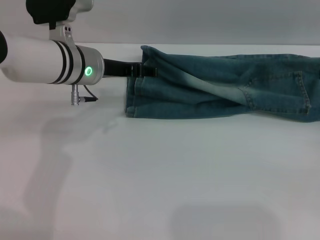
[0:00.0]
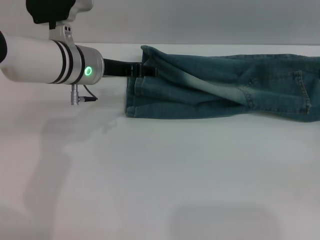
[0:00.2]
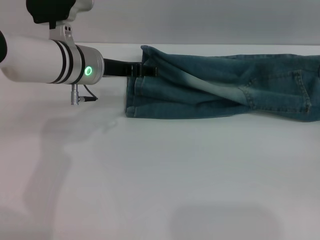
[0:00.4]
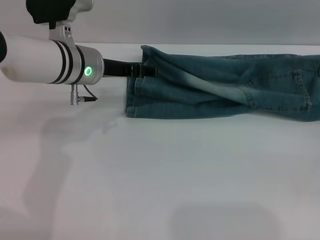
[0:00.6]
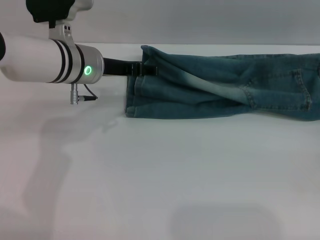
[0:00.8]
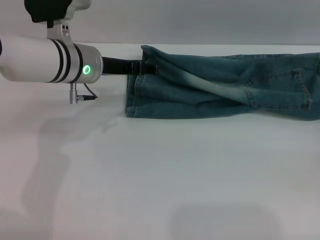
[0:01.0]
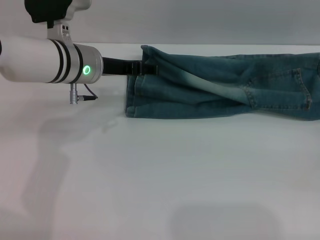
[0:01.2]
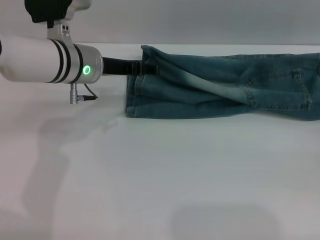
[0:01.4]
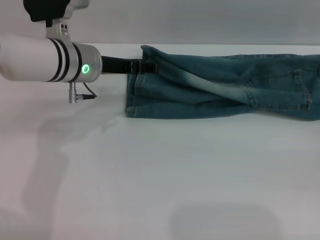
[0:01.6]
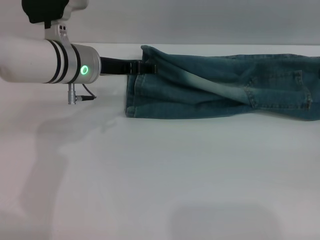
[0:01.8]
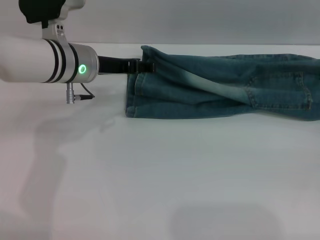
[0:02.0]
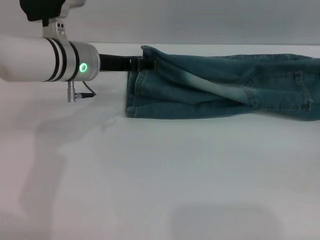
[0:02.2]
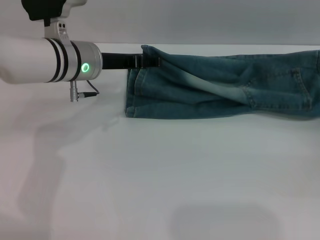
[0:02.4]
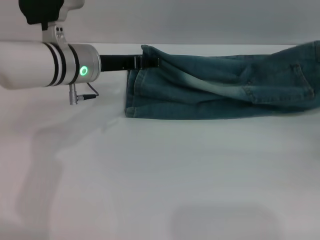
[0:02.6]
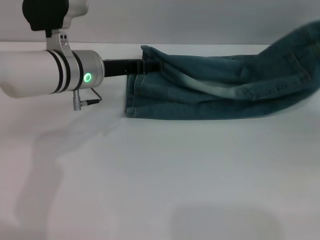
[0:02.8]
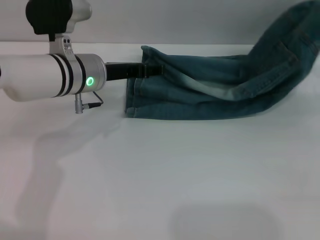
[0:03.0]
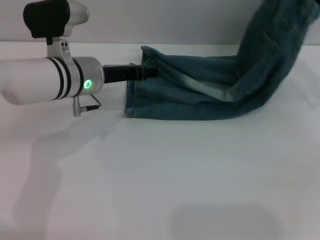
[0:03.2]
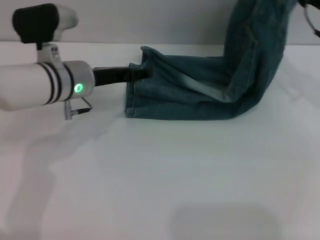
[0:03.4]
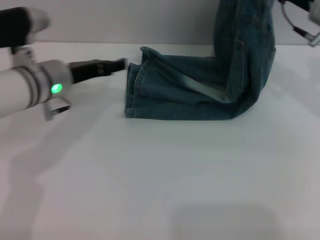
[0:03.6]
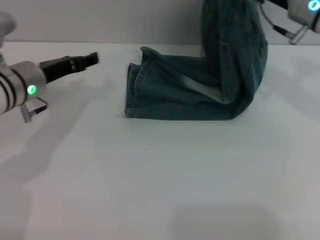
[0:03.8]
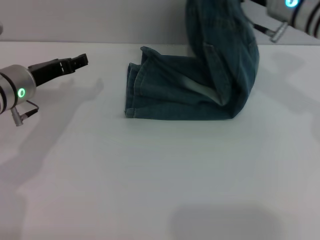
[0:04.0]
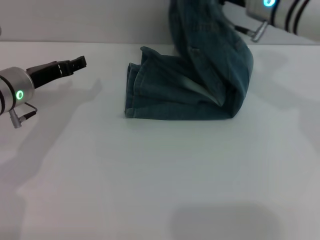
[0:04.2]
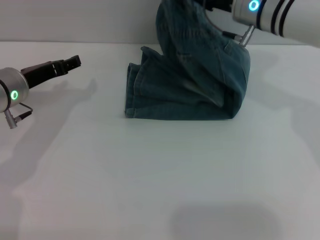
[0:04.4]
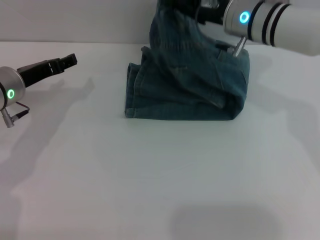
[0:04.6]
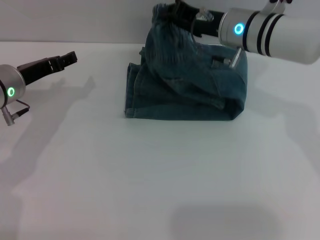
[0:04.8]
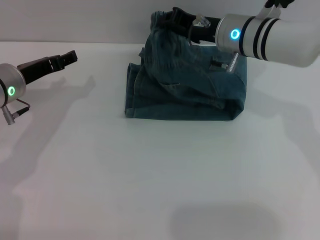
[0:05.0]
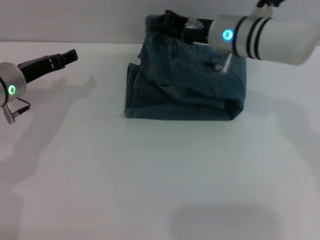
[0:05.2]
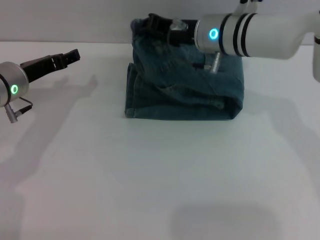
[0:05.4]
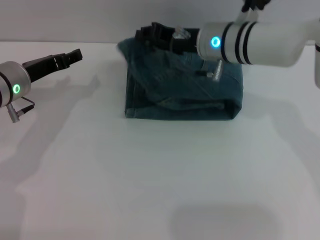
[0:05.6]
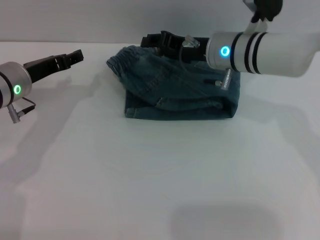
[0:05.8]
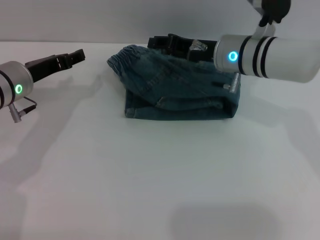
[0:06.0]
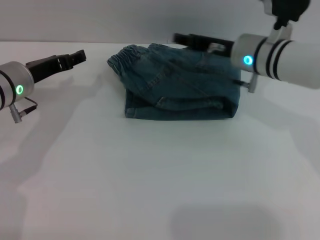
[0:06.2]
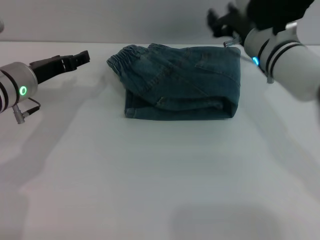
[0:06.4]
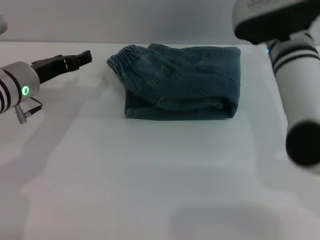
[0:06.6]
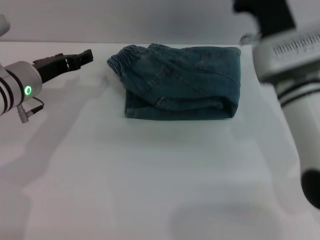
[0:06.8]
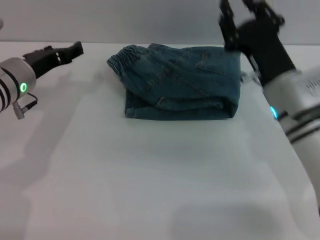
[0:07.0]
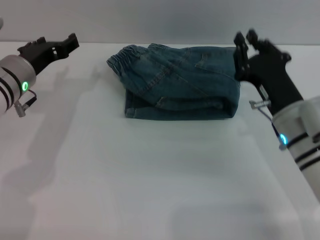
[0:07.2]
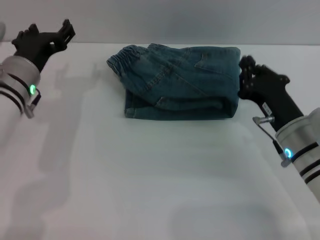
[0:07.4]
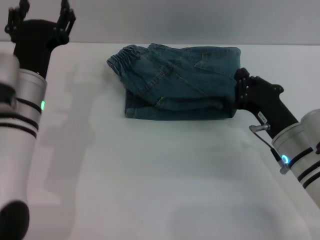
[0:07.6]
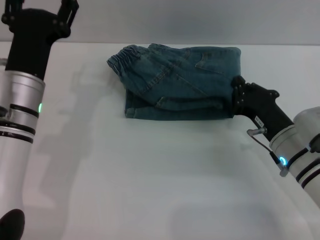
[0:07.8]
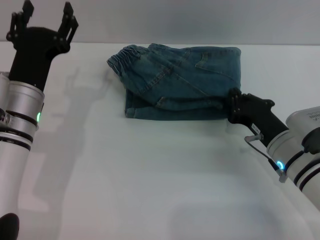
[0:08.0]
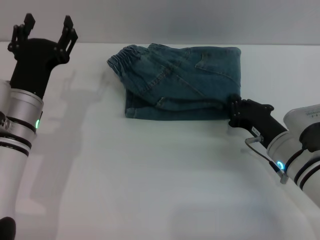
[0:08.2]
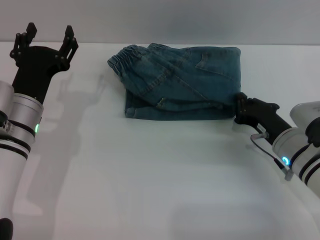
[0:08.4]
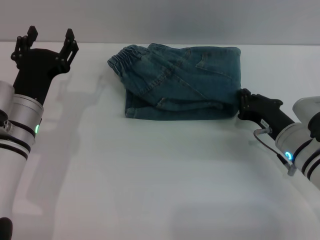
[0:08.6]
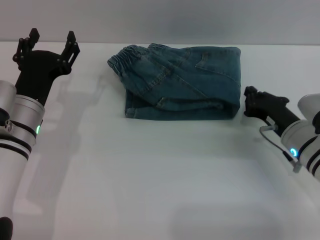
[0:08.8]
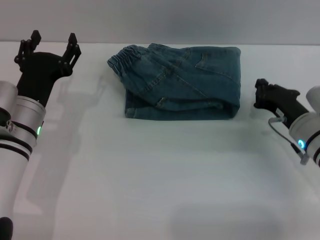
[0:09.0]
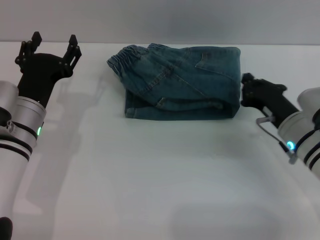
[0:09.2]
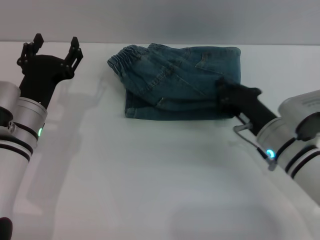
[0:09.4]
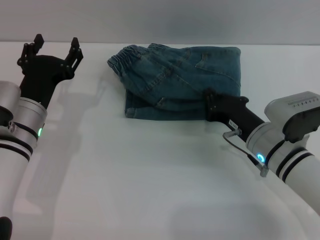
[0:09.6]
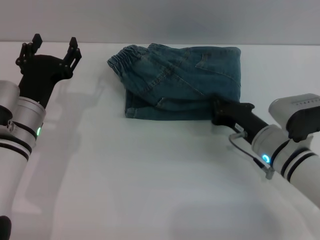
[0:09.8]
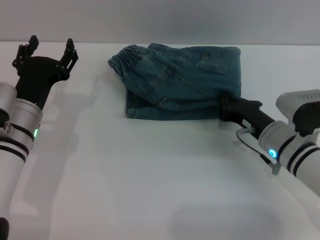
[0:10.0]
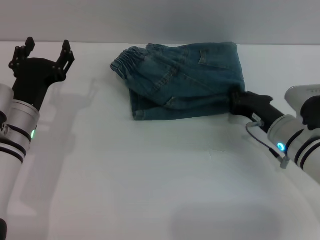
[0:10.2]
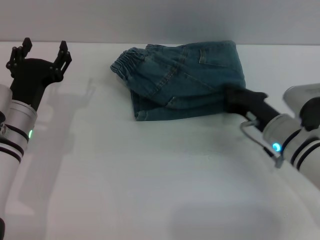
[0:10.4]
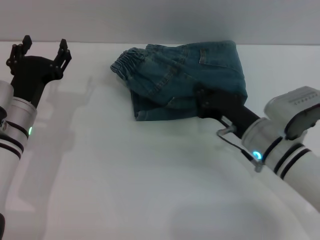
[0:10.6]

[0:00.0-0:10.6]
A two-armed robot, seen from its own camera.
Step, 0:00.0 to 0:06.2: Fold the pants from right to left with the right gripper.
Step, 0:06.4 to 0:10.6: Place the folded trousers onto the center area with the right grippers.
0:00.0 to 0:01.6: The grippers move only a little.
0:01.6 to 0:03.0: The right gripper shifts some 15 cm upward, forward and to the left, and closes its fingers.
0:03.0 to 0:04.6: The right gripper heads to the left, covering some 20 cm. Meanwhile the left gripper travels to the left by roughly 10 cm.
0:04.6 to 0:06.0: The right gripper opens.
0:06.0 to 0:07.6: The right gripper travels backward, downward and to the right by about 20 cm, and closes up. Meanwhile the left gripper goes approximately 5 cm to the right and backward.
0:07.6 to 0:09.0: The right gripper ends up approximately 5 cm from where it was.
0:09.0 to 0:10.6: The right gripper swings left and right, some 10 cm each way, with 2 reversals.

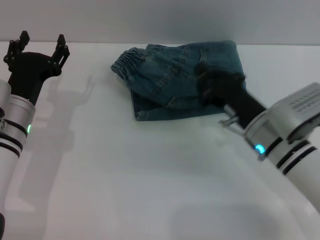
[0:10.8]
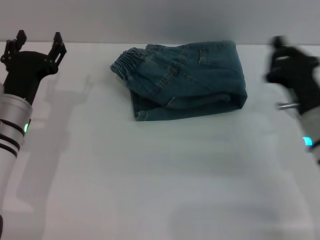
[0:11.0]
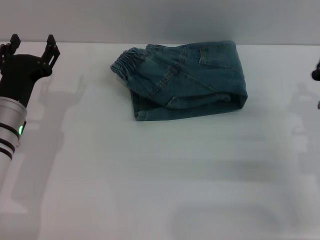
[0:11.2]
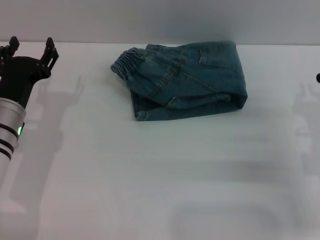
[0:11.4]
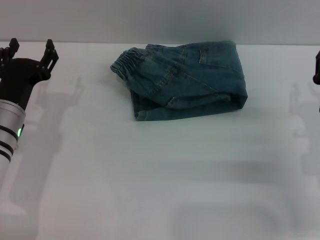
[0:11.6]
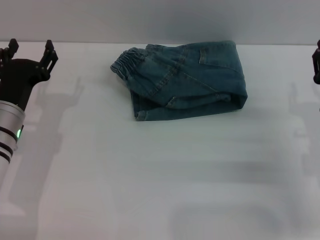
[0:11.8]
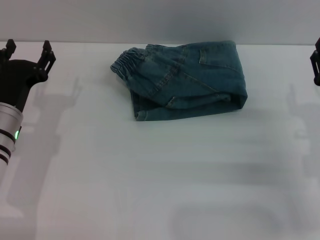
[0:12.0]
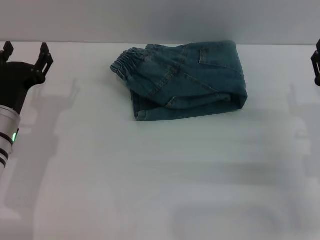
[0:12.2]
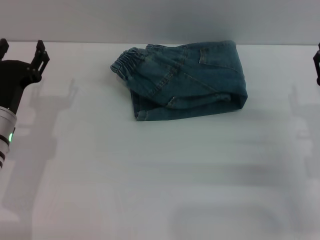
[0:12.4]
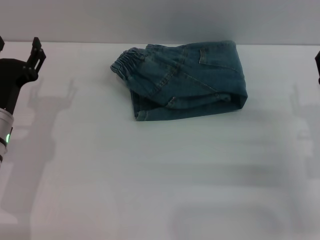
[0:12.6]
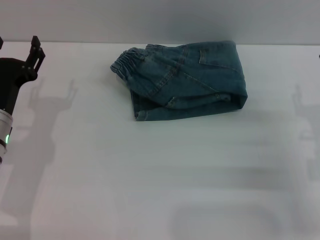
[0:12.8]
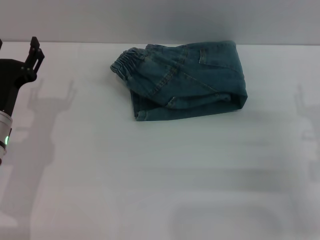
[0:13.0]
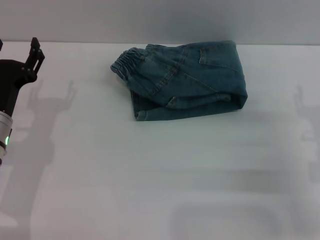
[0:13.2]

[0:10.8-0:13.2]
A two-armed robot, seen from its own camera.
0:10.8 to 0:12.0: The right gripper goes some 10 cm to the right, and opens up.
0:12.0 to 0:13.2: The grippers make only small movements.
